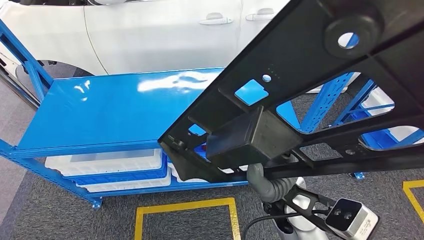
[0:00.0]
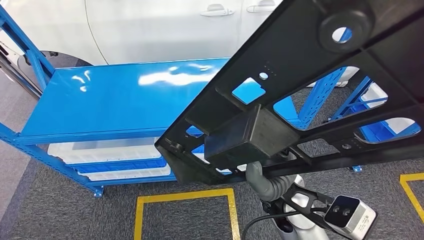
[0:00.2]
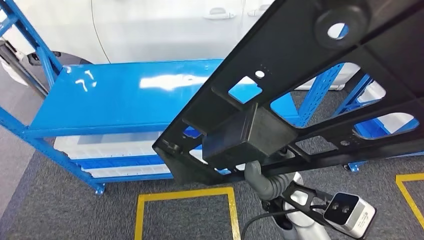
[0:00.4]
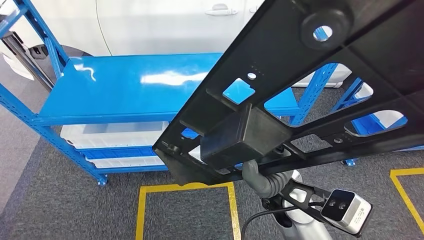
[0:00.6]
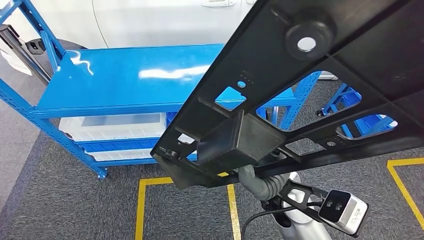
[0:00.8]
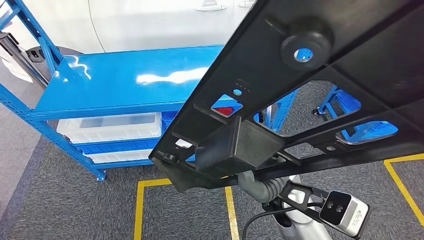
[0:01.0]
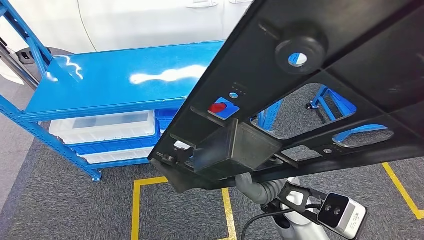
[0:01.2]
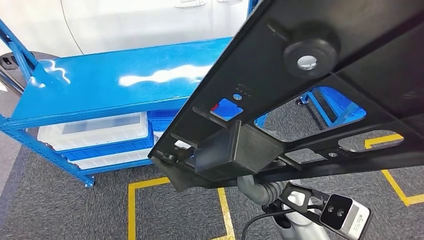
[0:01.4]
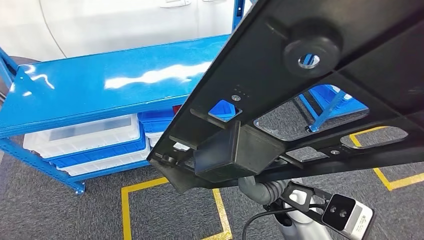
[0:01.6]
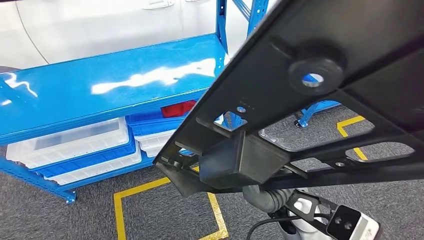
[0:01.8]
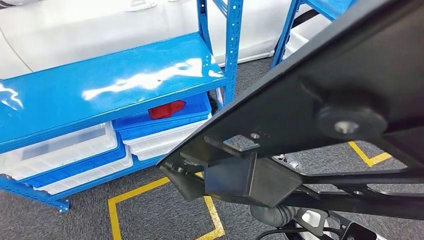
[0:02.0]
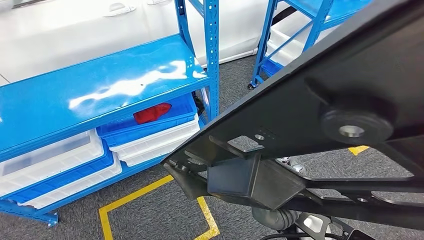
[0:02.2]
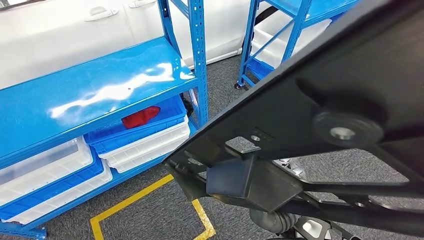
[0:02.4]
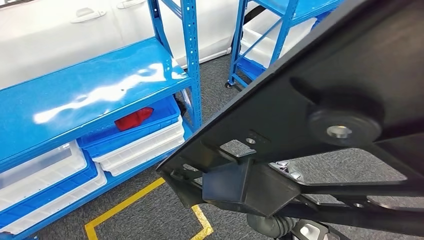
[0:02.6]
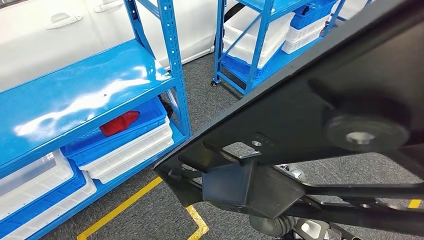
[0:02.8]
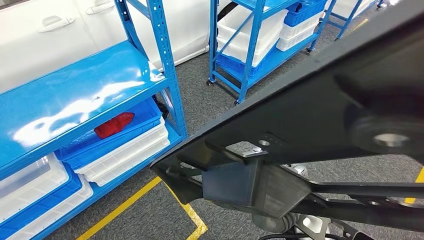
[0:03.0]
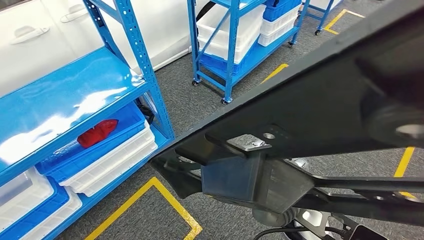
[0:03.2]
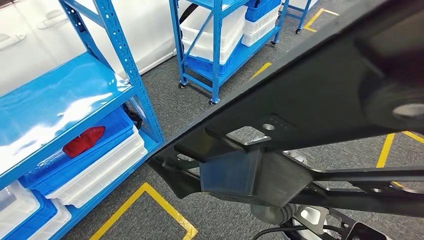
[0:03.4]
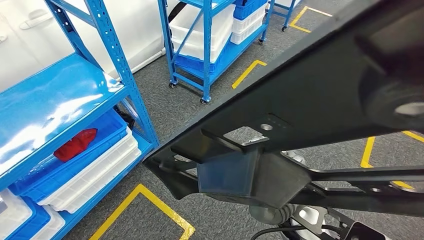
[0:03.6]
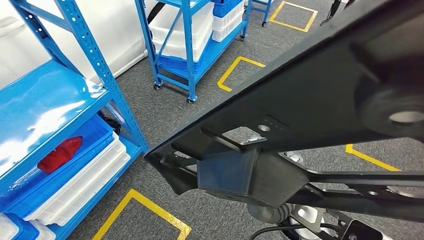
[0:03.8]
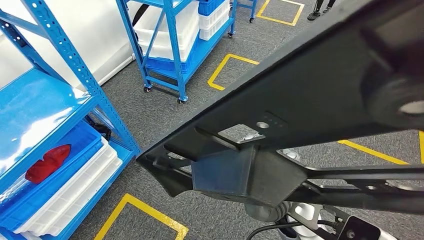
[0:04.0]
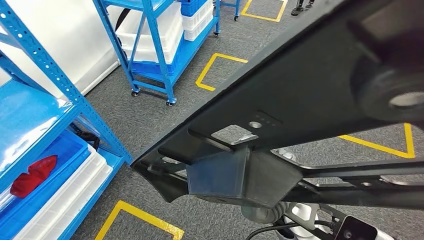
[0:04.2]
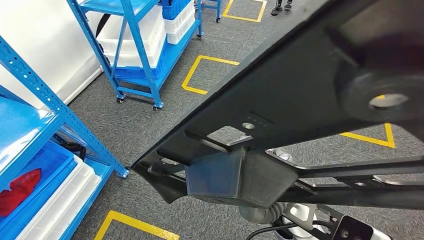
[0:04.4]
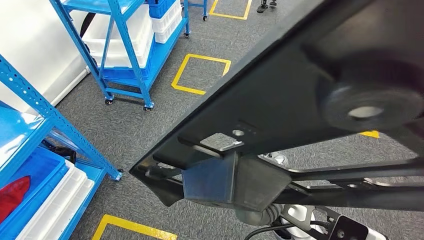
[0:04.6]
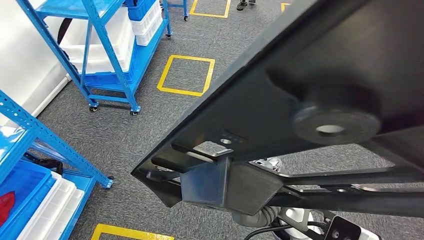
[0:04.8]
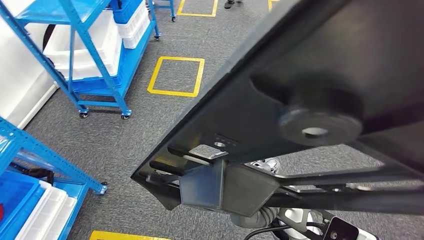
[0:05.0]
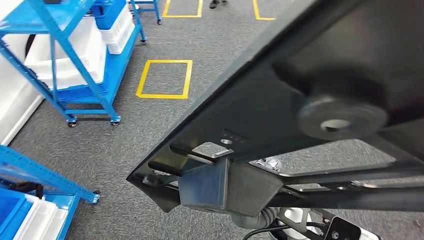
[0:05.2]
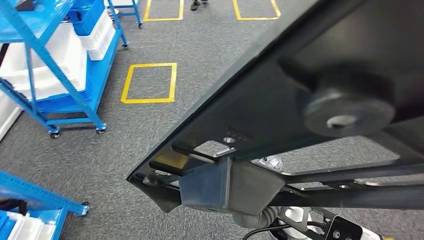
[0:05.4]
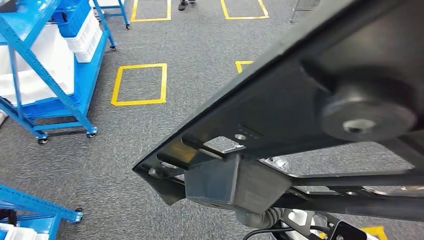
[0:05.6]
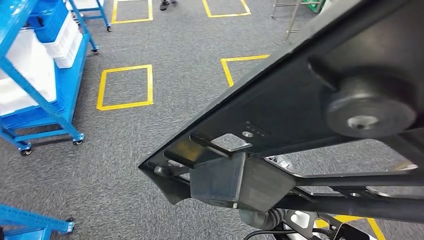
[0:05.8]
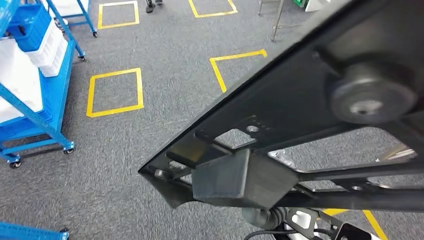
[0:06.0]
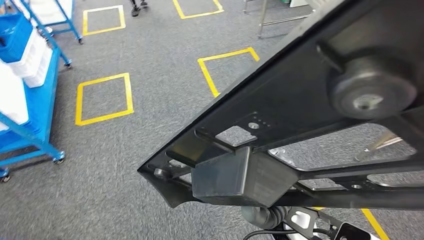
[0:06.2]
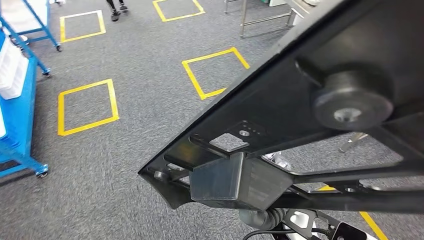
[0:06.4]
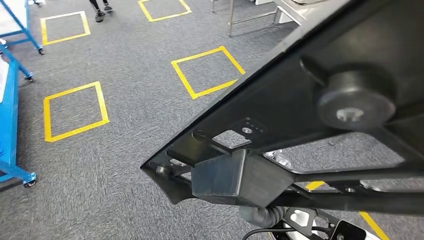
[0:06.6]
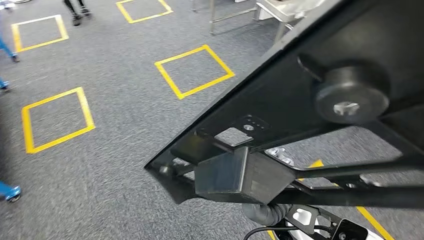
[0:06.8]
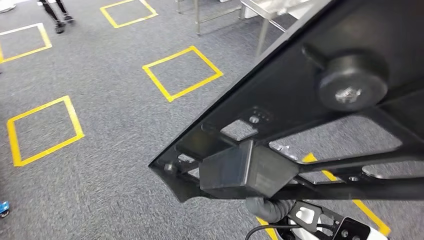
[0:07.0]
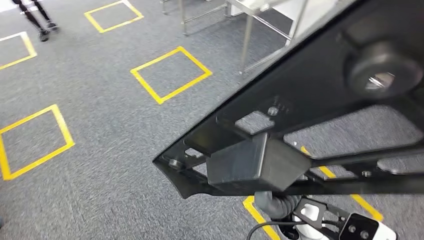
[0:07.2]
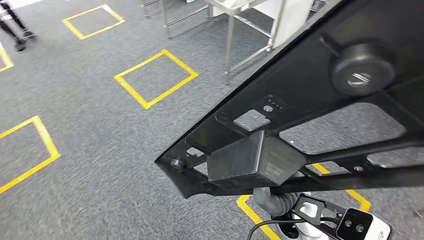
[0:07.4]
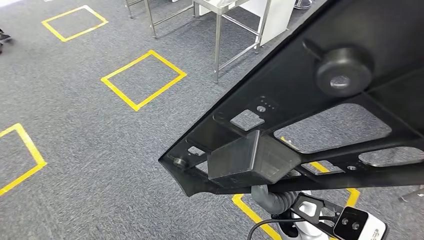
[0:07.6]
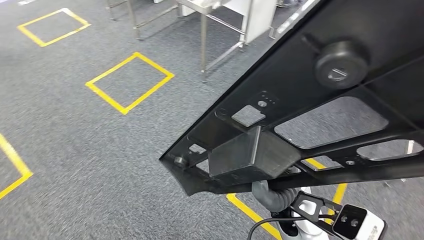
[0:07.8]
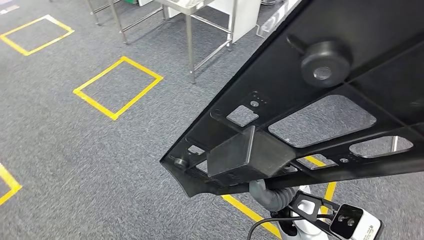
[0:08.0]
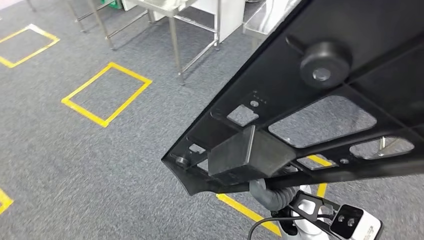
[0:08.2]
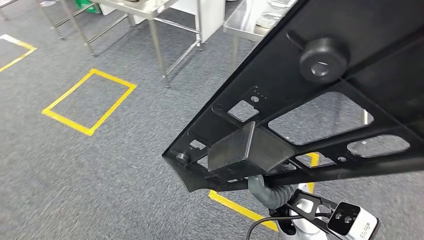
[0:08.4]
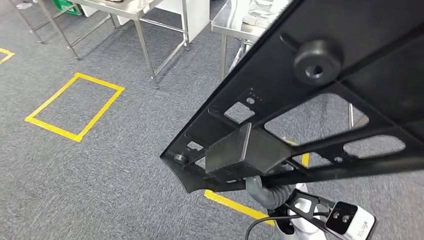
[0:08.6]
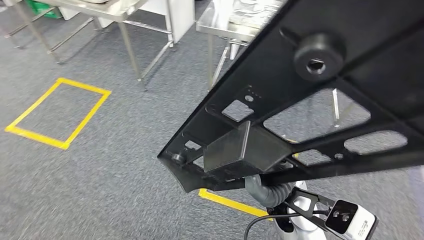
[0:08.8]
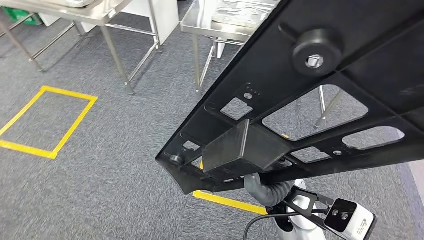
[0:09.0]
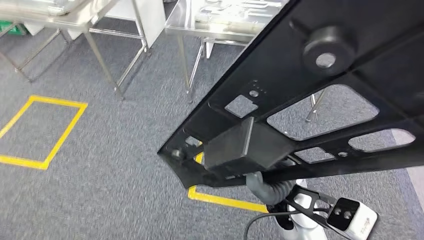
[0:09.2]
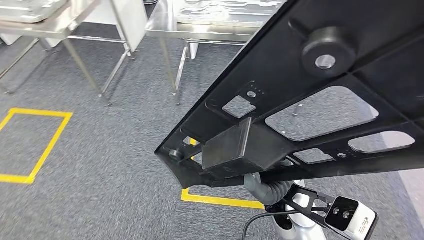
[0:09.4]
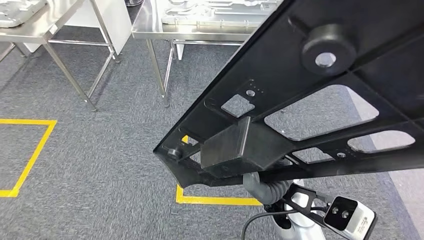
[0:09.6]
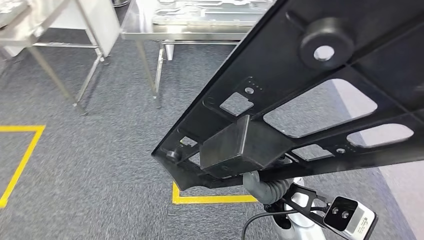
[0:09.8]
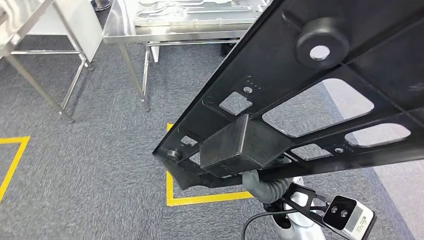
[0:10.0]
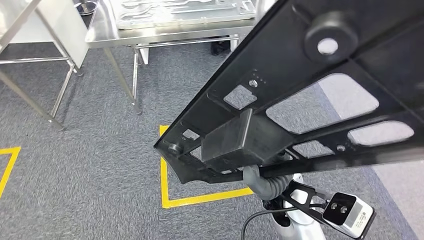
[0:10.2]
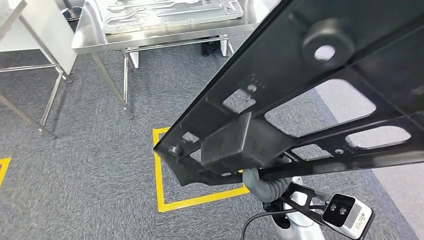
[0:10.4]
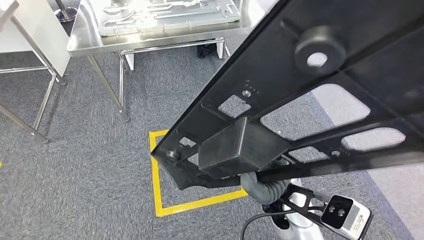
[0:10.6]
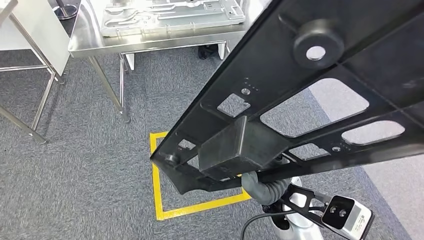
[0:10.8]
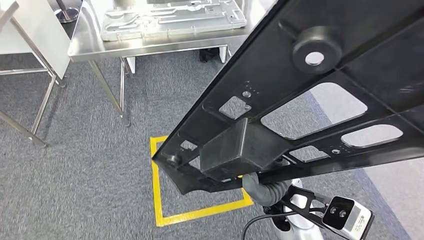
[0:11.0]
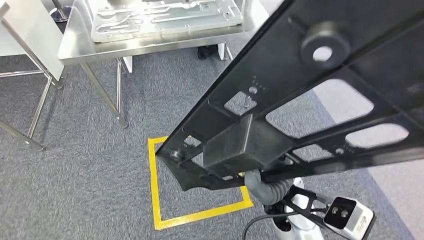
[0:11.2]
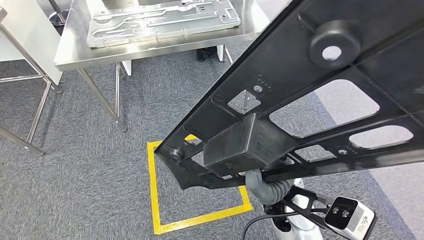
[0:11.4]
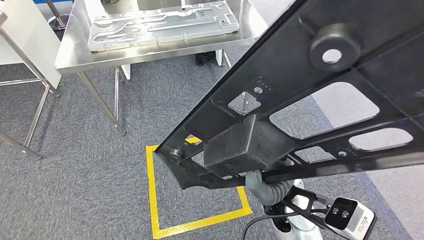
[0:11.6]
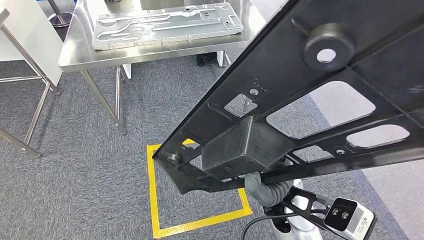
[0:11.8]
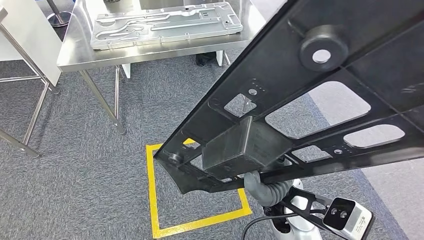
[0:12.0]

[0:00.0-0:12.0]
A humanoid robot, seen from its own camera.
Step, 0:03.0 to 0:05.0: Insert the large material into the corresponding slot on the workbench.

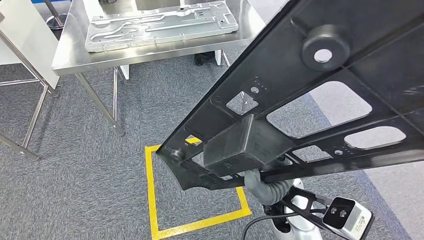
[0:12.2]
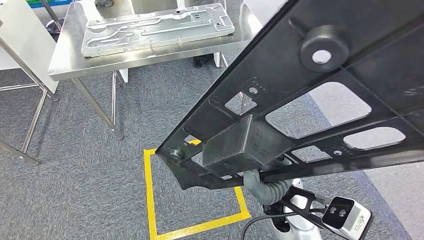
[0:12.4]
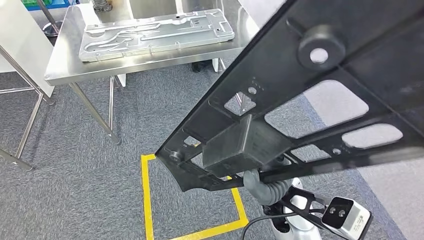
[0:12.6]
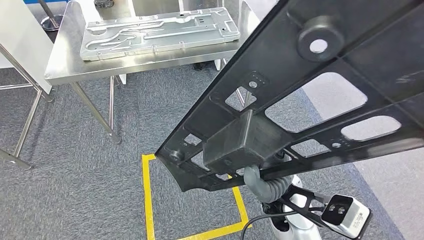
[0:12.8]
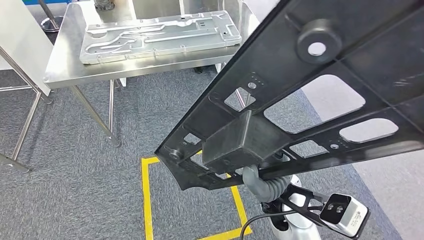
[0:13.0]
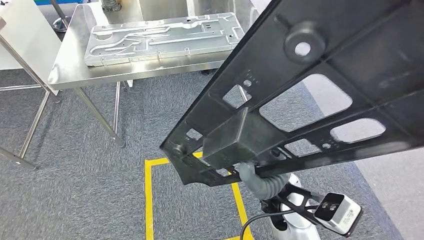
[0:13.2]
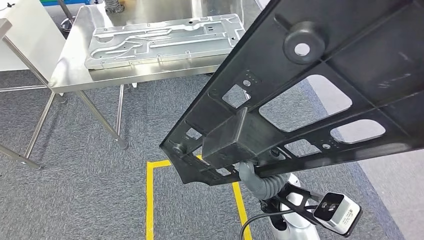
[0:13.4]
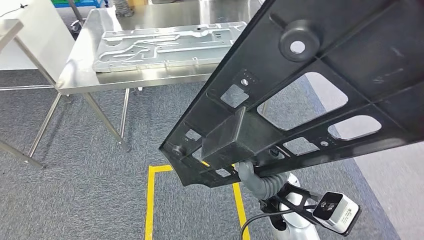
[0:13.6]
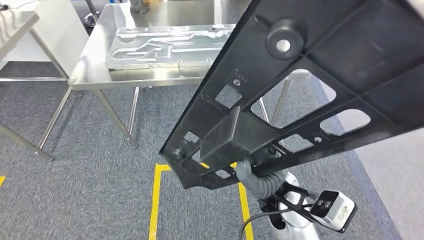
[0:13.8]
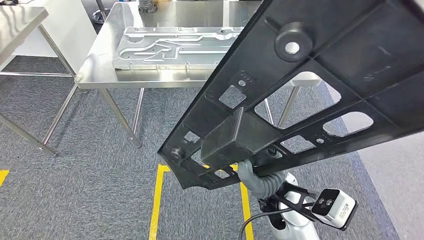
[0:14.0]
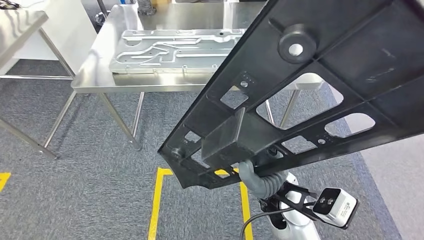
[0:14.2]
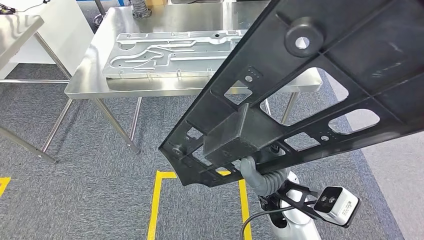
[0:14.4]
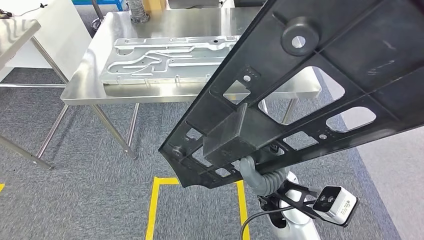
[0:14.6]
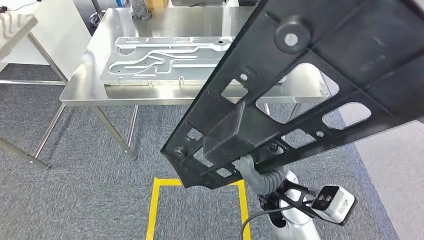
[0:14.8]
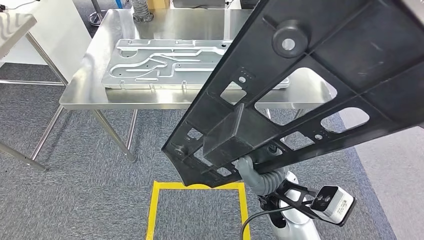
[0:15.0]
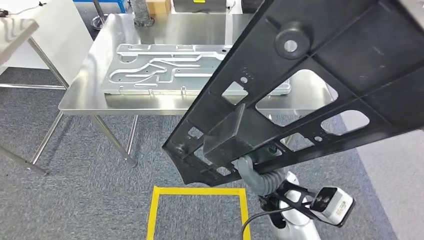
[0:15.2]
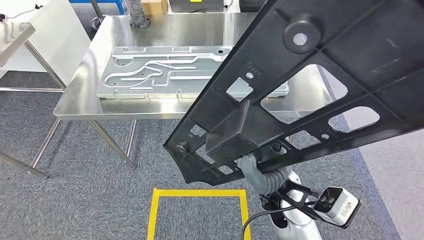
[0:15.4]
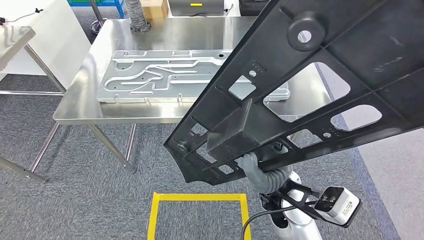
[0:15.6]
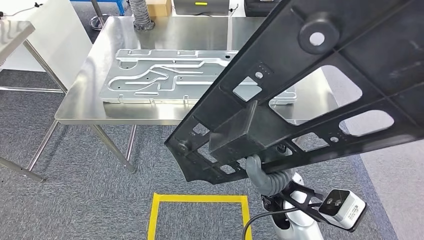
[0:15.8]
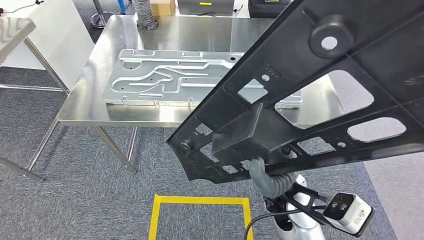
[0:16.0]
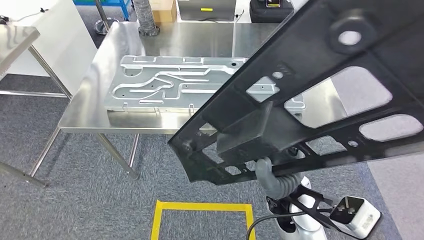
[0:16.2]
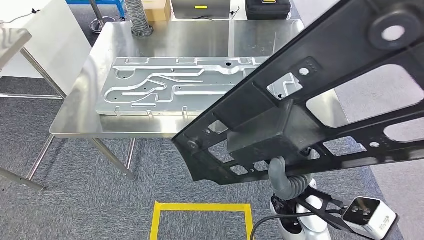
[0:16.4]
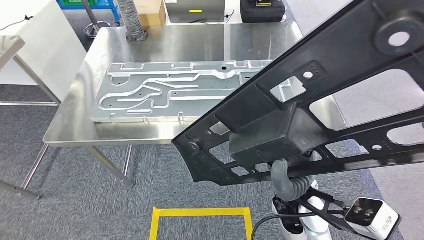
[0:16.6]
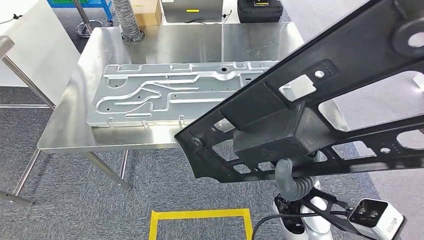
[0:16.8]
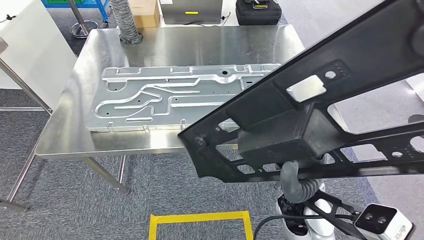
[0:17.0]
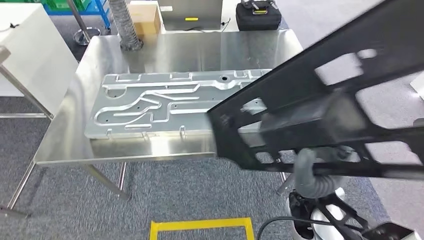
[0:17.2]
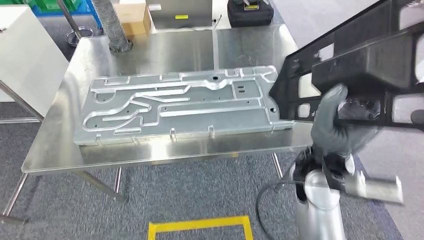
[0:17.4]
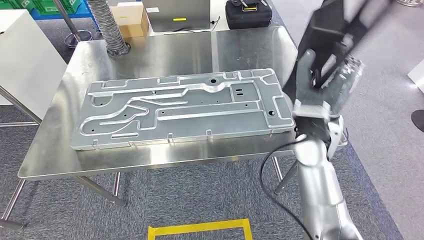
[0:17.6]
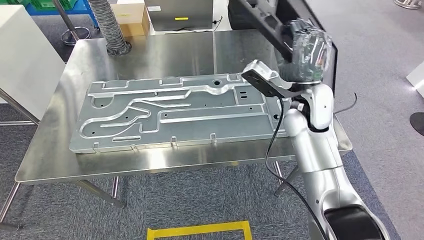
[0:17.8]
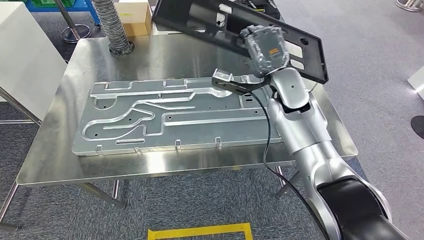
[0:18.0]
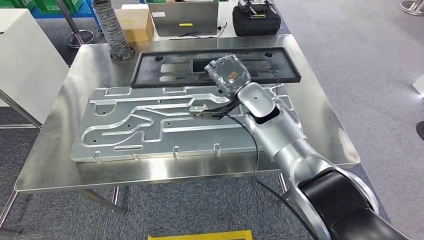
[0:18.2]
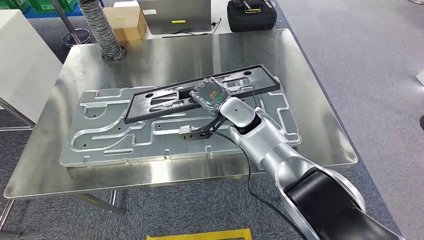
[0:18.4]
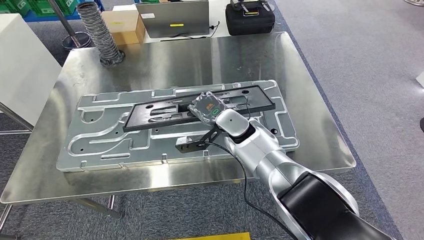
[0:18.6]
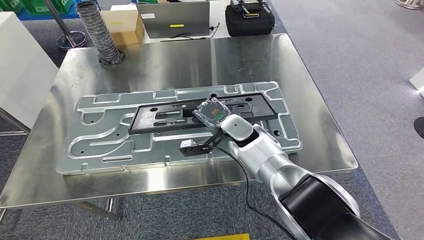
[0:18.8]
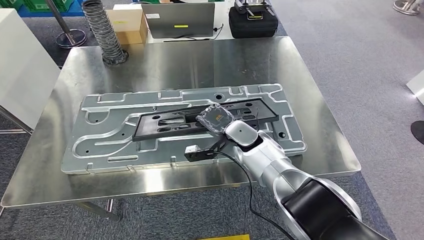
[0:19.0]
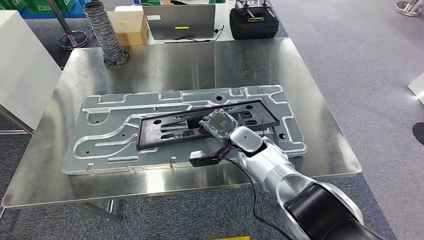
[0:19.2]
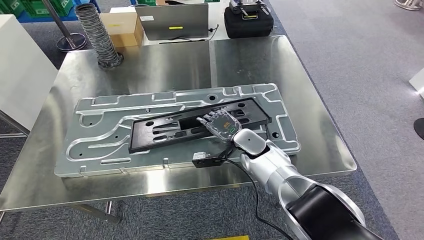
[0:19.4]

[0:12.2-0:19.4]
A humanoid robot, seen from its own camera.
Step, 0:12.2 to 0:16.0: Move the large material to the workbench.
